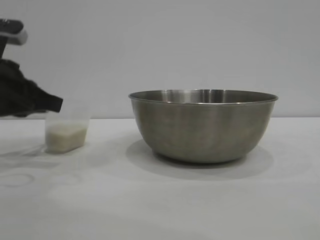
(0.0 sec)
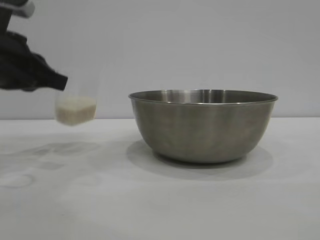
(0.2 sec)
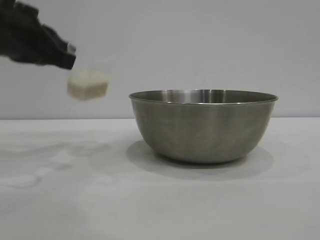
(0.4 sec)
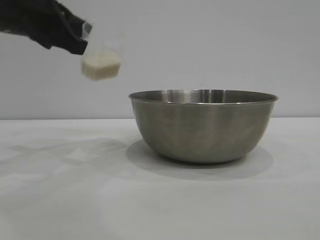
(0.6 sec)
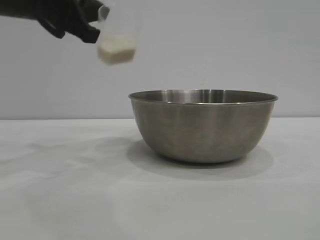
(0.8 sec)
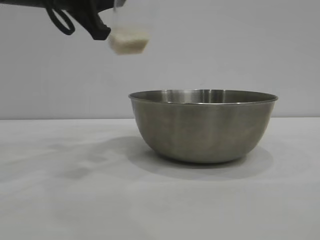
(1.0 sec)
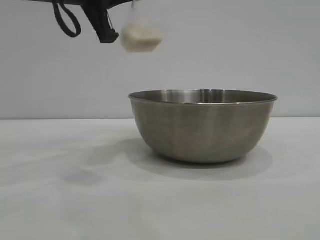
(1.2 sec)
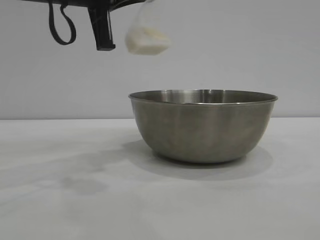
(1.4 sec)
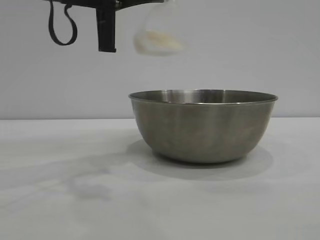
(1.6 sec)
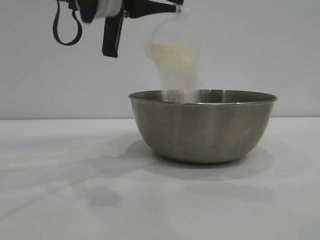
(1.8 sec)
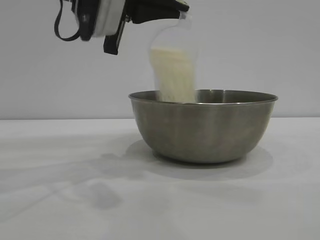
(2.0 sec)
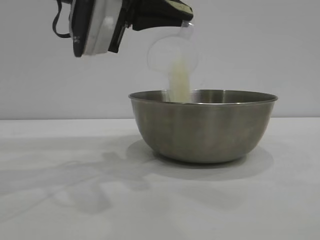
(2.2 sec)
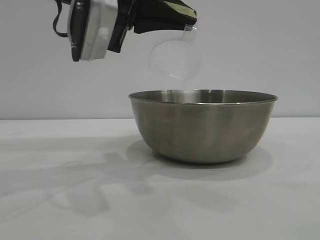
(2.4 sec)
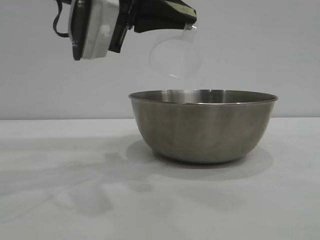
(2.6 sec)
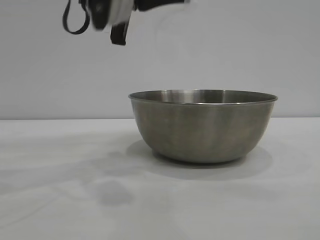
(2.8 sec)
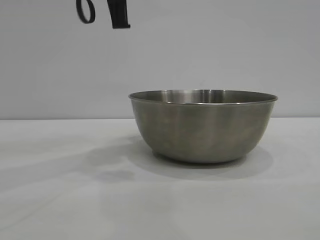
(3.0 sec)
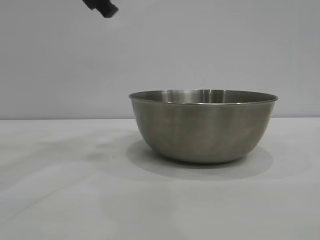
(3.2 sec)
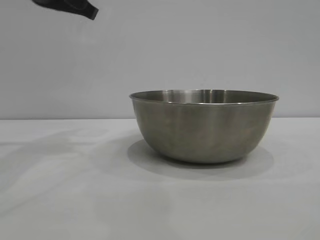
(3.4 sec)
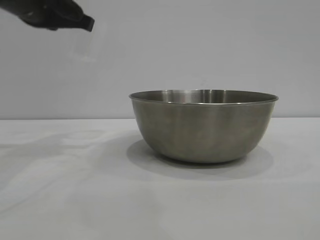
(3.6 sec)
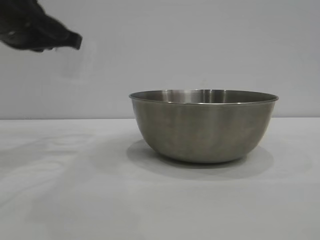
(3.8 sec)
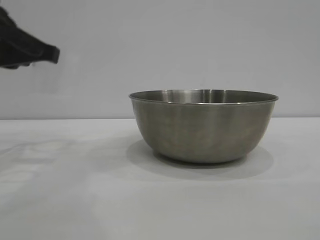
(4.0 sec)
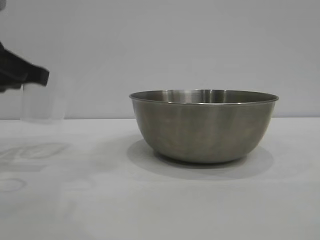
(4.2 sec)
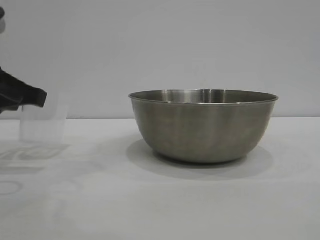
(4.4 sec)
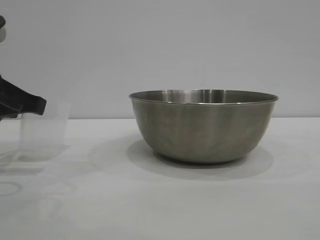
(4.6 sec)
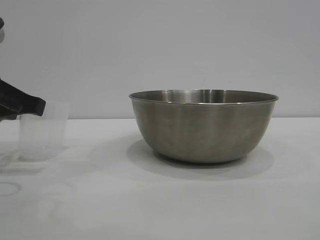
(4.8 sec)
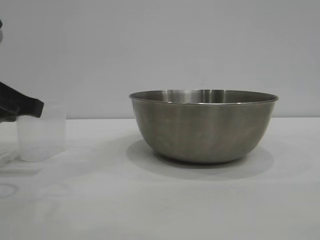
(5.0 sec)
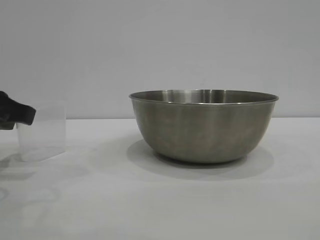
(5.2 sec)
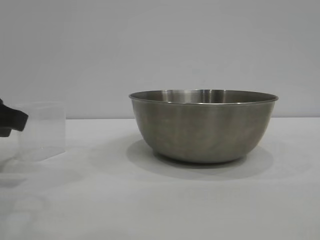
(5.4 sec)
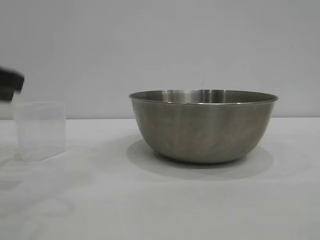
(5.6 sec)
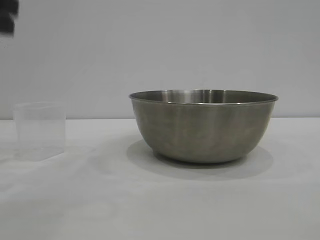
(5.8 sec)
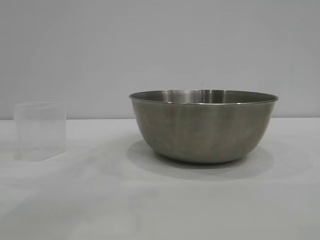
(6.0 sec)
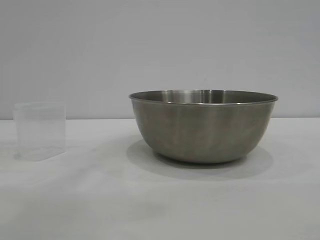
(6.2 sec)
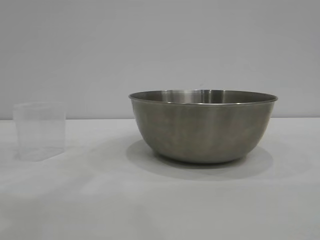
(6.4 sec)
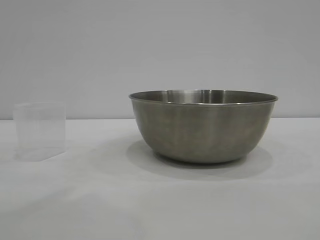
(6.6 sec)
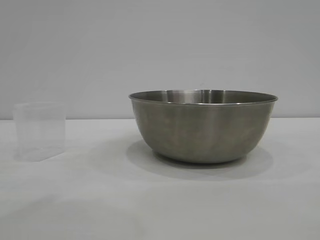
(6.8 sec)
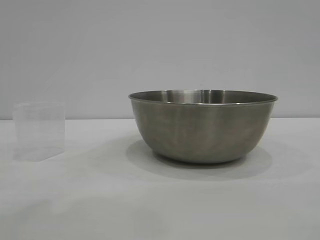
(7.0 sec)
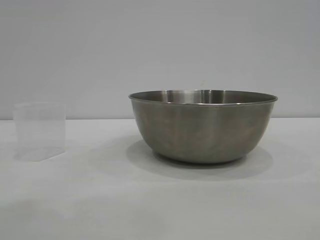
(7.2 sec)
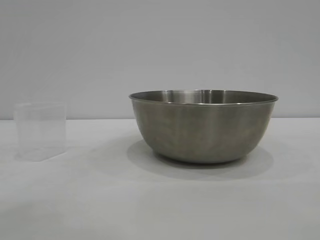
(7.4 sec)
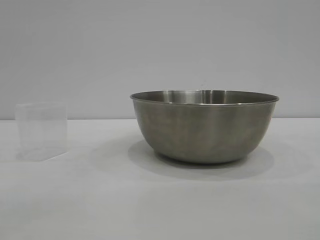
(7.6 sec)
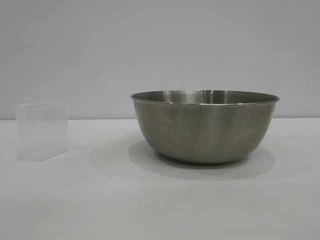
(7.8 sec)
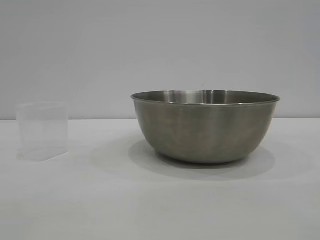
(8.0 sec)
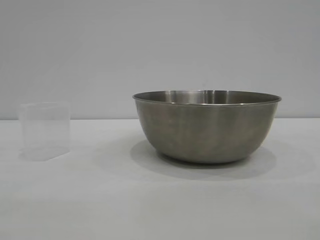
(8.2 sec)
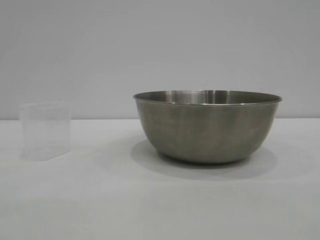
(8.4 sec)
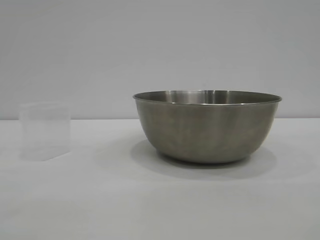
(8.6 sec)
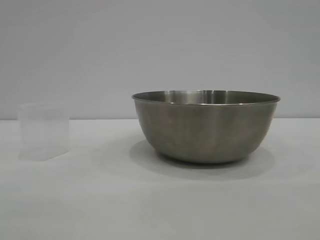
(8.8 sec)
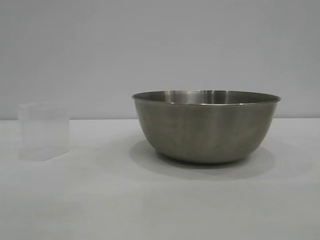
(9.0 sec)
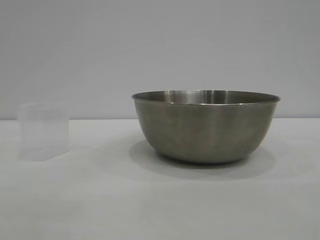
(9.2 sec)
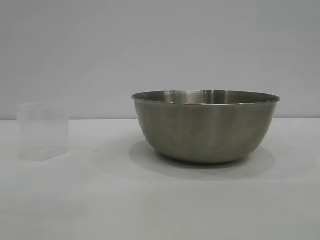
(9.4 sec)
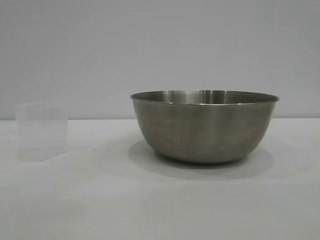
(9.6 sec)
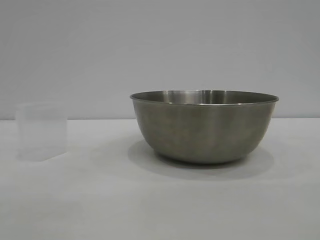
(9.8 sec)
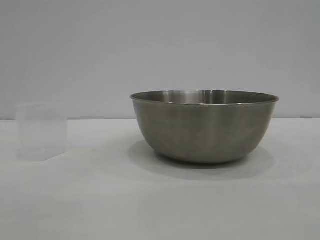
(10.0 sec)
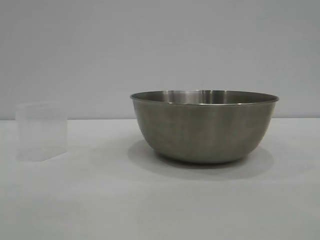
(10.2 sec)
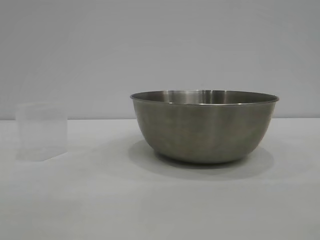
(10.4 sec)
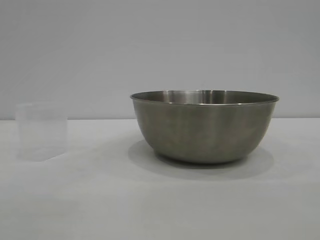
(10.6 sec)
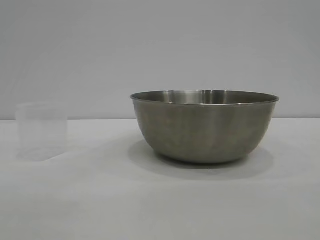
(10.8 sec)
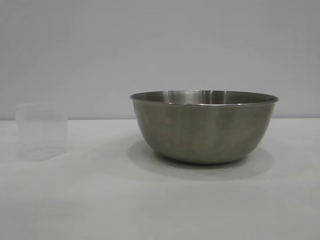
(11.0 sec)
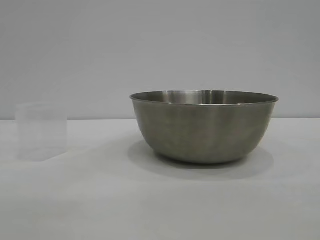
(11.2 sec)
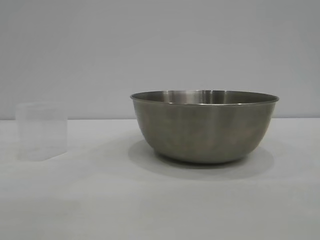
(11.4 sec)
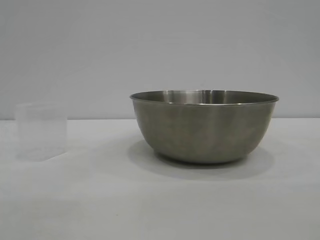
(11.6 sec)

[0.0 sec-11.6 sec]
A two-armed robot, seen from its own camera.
Task of the whole recording: the right gripper grasp the rice container and place it in the center of the table, the left gripper grasp the rice scoop and pour the rice into the rice container.
Step, 0.2 sec to 2.6 sec: Pour the rice from the cup into the bowl with the left gripper.
Step, 2.8 sec to 5.4 sec: Place the cup on the table with the left gripper.

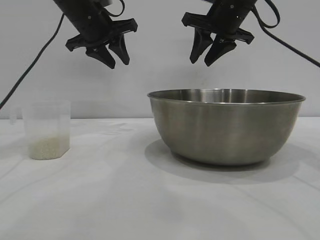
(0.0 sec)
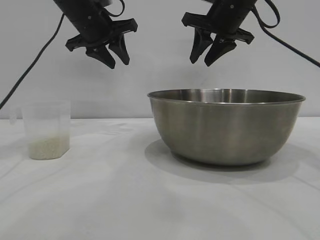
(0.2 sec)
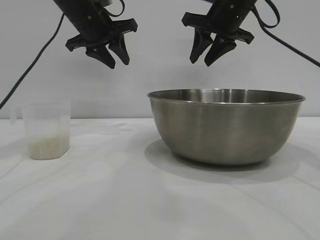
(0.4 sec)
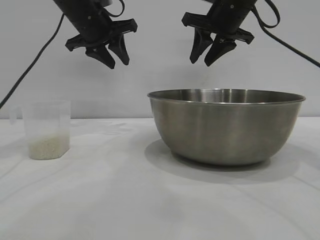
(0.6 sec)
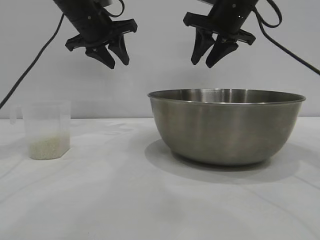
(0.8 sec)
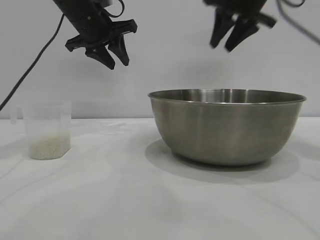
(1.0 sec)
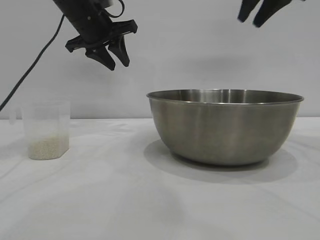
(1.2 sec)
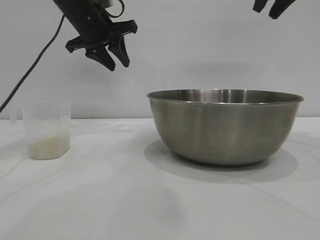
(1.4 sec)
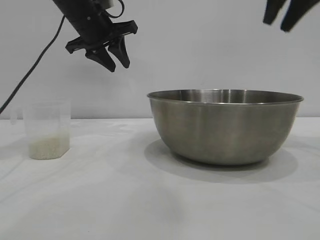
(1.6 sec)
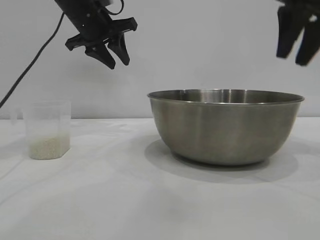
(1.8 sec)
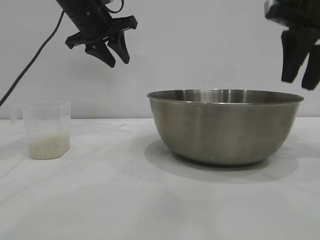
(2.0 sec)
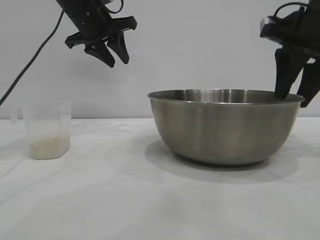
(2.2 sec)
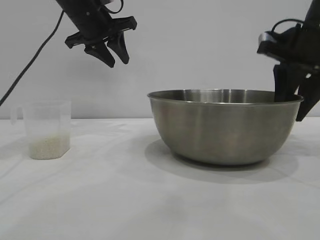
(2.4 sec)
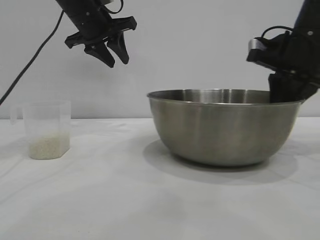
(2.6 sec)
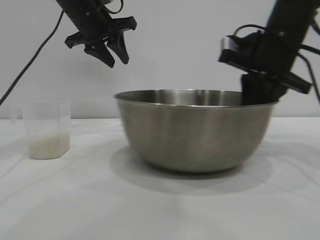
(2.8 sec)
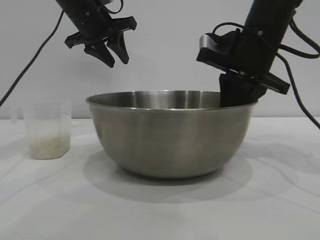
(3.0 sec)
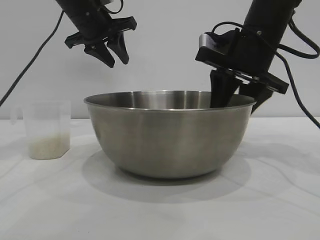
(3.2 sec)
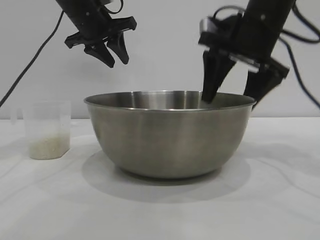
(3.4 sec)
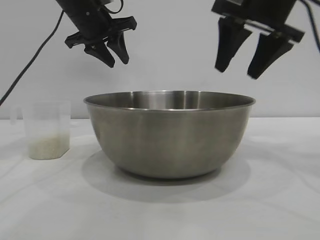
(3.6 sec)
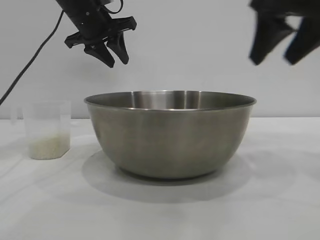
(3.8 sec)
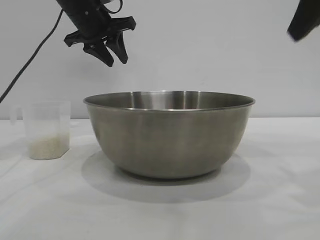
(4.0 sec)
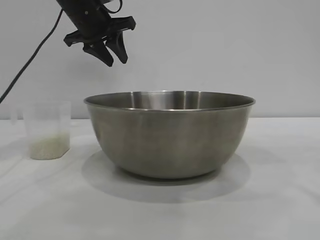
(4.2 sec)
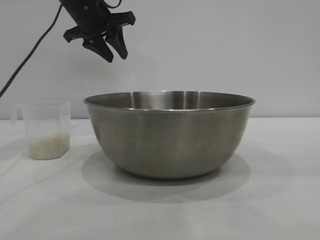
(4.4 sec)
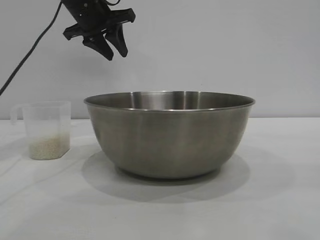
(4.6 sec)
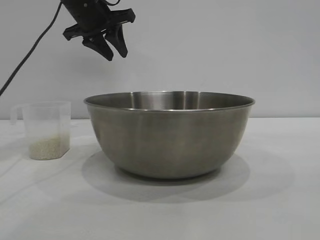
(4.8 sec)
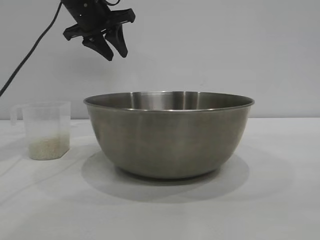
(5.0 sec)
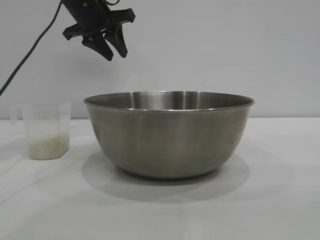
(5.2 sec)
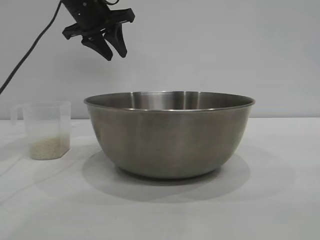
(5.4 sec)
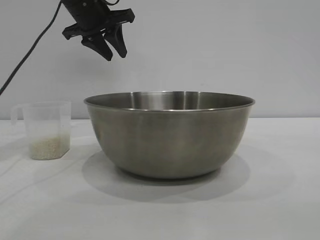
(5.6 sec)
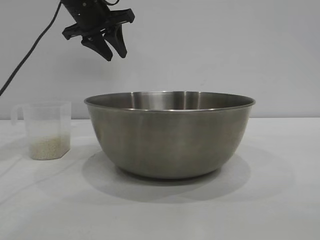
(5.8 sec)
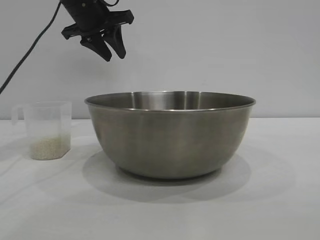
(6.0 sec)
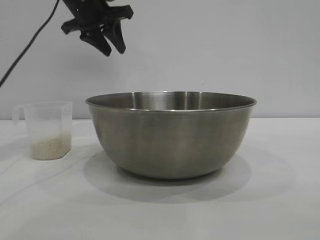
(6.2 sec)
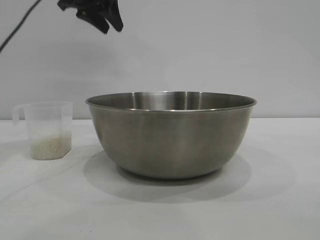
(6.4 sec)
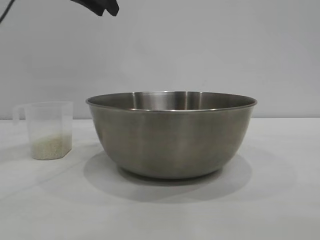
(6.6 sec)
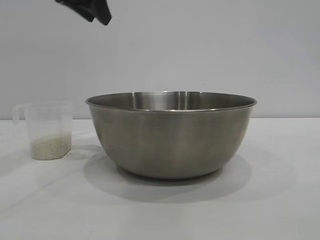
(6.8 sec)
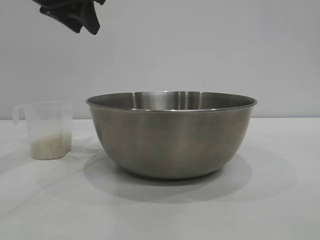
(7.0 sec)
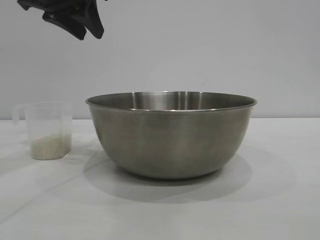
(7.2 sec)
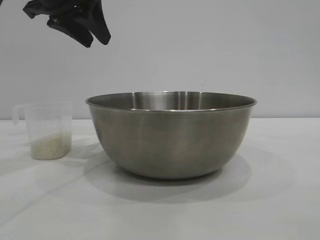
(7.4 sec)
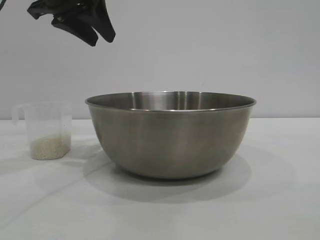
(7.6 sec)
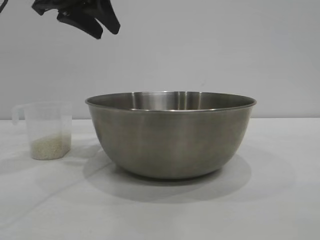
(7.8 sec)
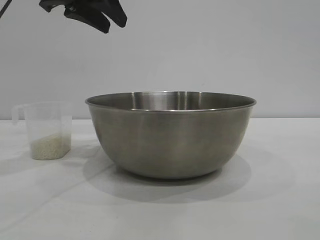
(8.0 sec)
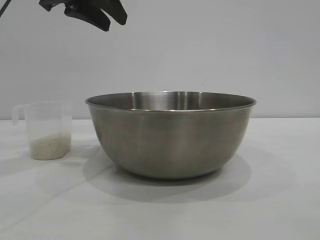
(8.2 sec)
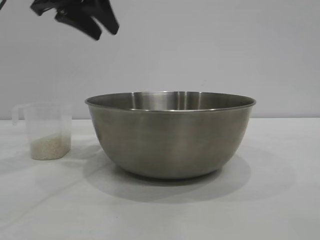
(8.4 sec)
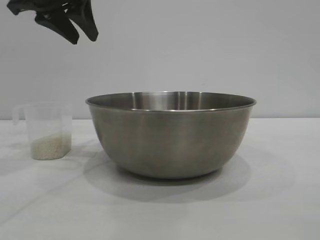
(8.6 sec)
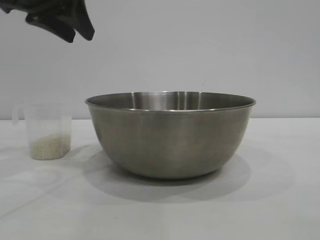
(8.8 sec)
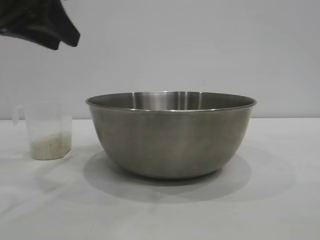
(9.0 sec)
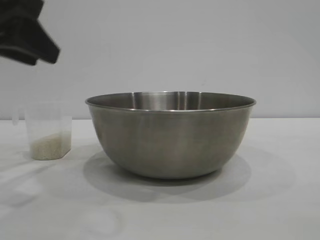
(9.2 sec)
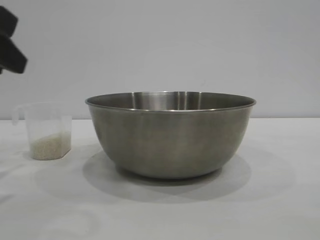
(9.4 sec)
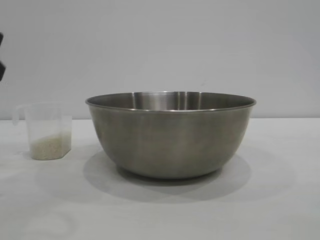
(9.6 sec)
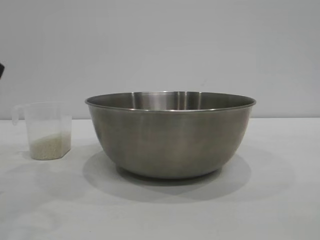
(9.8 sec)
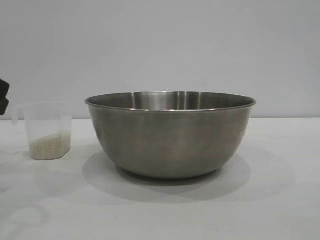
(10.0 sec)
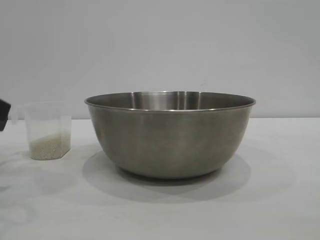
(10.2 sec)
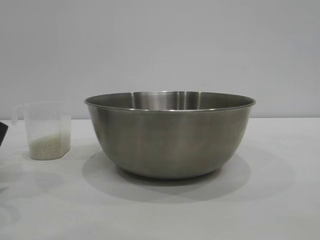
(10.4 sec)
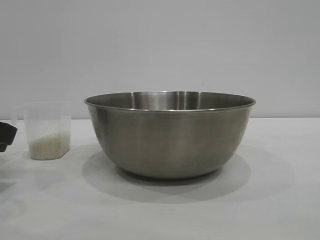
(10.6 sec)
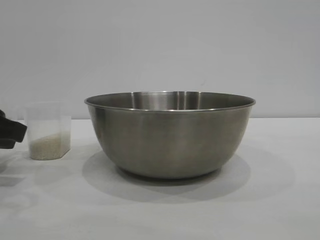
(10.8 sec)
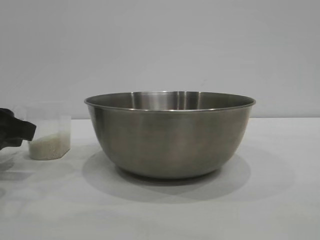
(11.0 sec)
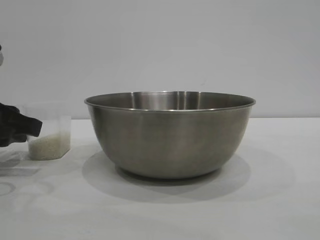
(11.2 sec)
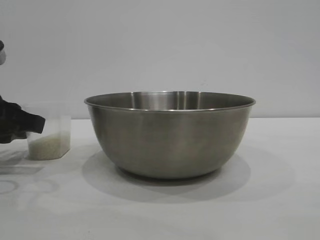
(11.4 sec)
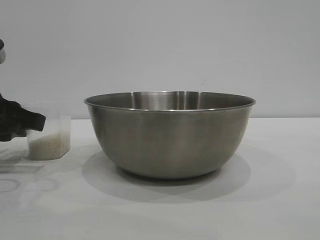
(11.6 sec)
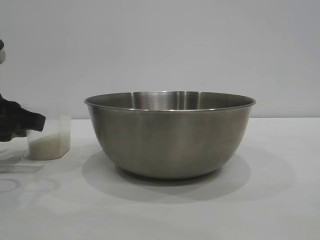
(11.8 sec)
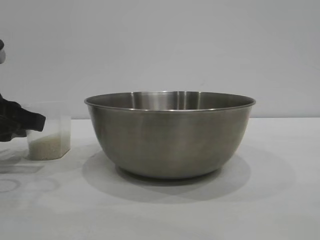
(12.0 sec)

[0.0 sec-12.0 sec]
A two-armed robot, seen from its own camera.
Task of the whole recording: the right gripper grasp the rice container and place it in the center of the table, the left gripper grasp the rice scoop and pour the rice into the rice container.
Step, 0.0 sec to 3.6 sec: Move the bowl to the center of view with the right gripper.
